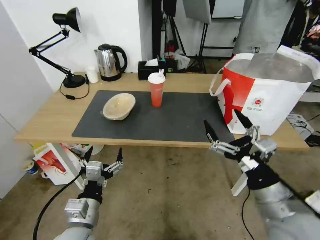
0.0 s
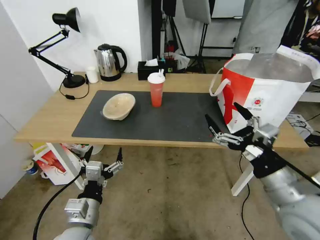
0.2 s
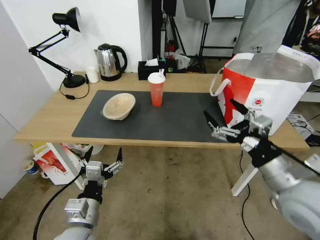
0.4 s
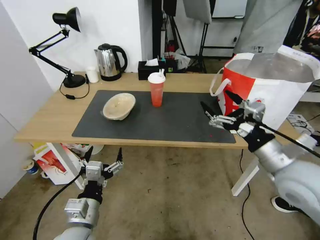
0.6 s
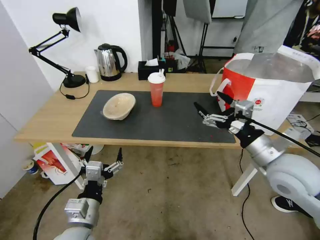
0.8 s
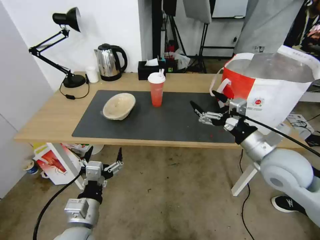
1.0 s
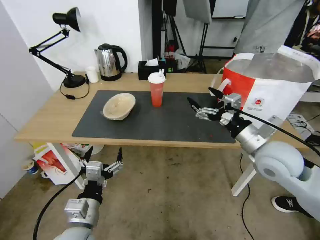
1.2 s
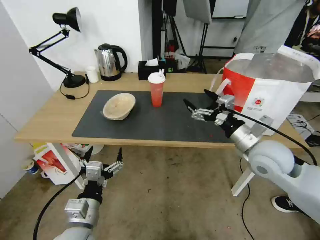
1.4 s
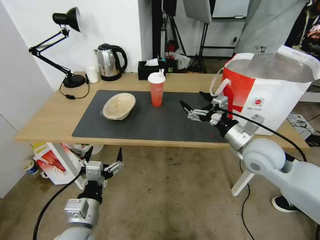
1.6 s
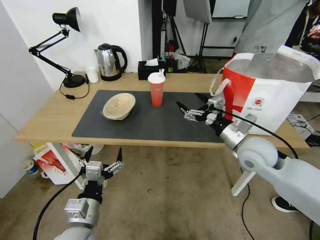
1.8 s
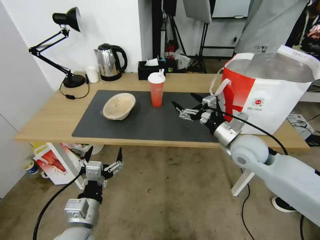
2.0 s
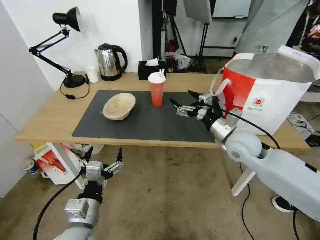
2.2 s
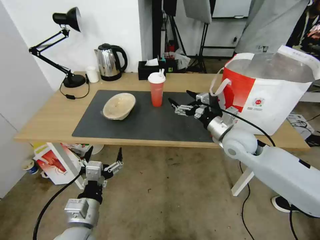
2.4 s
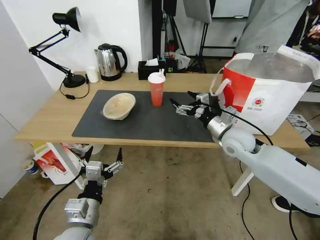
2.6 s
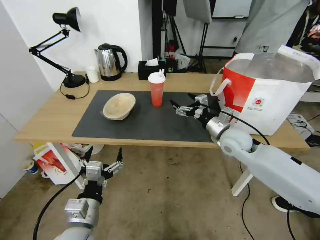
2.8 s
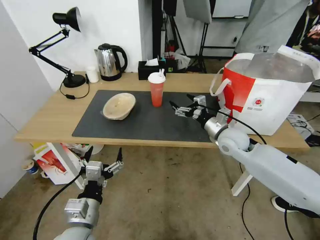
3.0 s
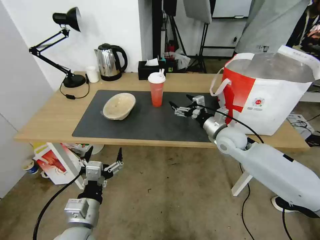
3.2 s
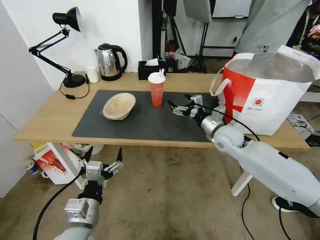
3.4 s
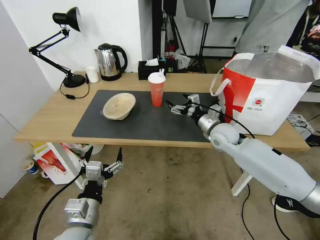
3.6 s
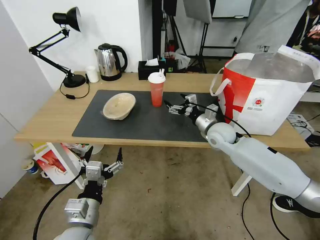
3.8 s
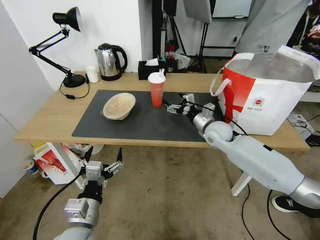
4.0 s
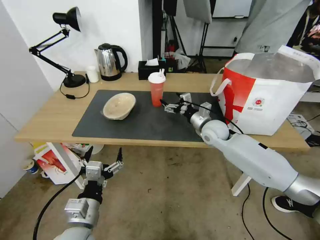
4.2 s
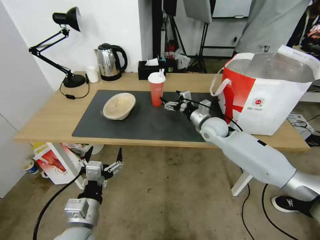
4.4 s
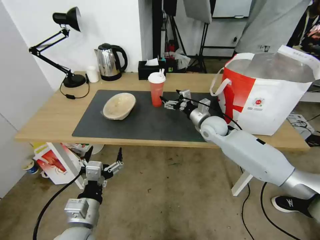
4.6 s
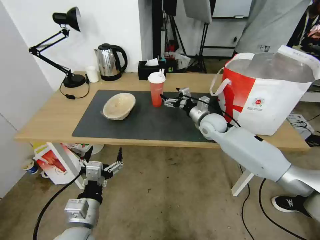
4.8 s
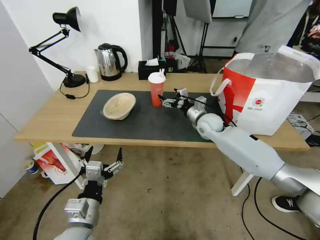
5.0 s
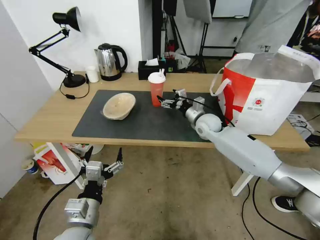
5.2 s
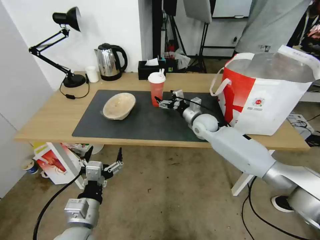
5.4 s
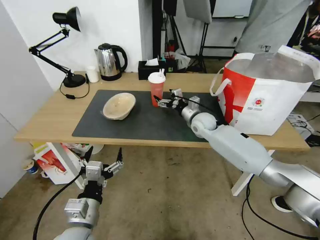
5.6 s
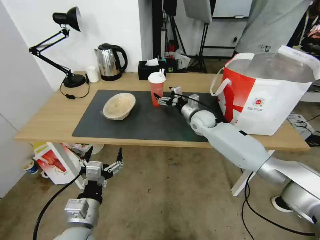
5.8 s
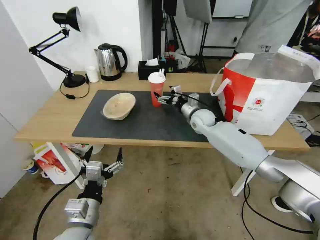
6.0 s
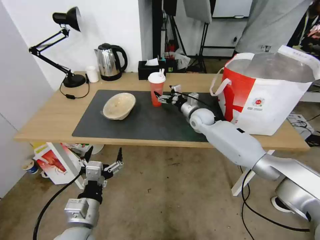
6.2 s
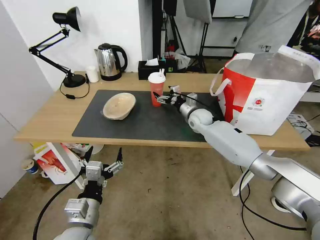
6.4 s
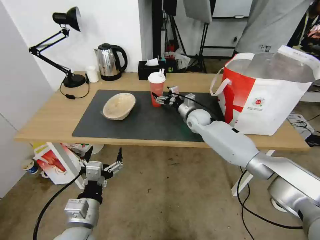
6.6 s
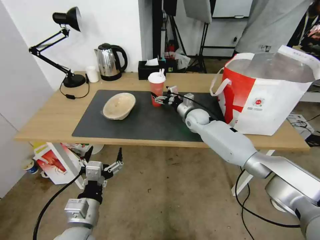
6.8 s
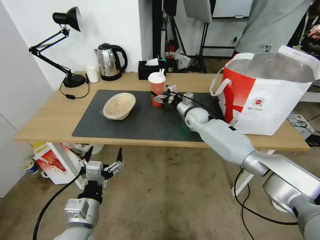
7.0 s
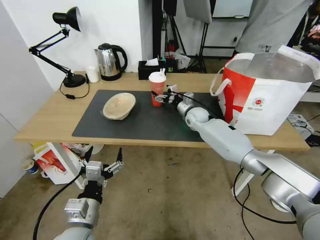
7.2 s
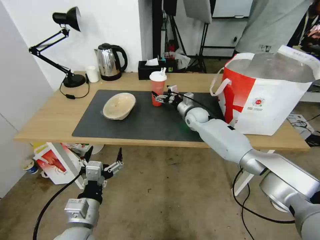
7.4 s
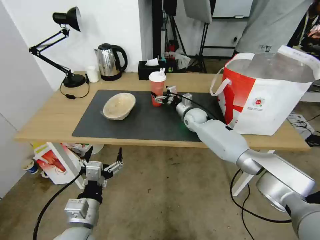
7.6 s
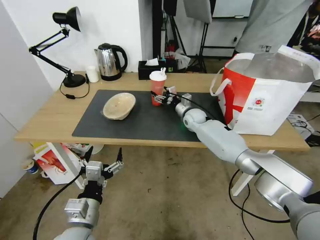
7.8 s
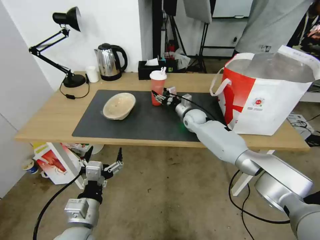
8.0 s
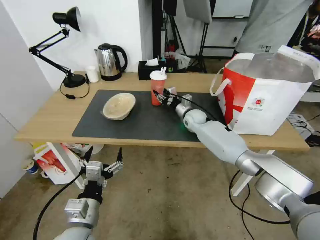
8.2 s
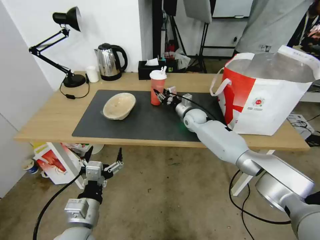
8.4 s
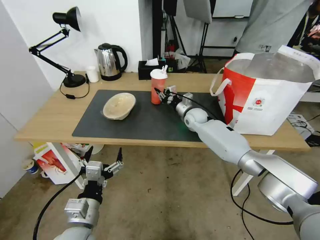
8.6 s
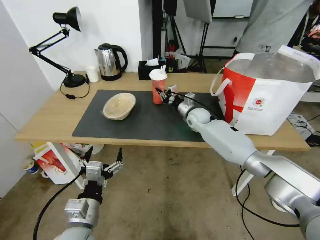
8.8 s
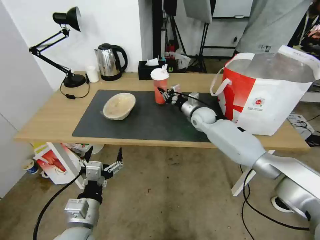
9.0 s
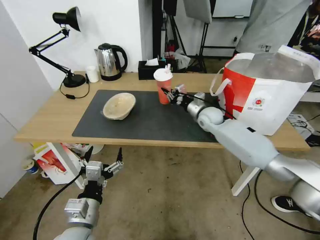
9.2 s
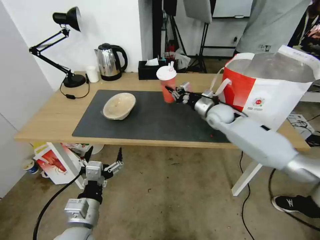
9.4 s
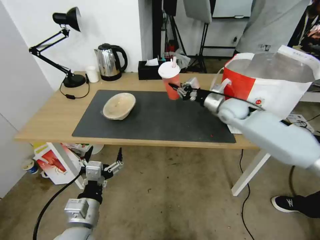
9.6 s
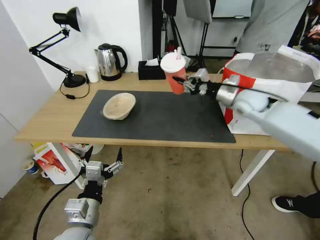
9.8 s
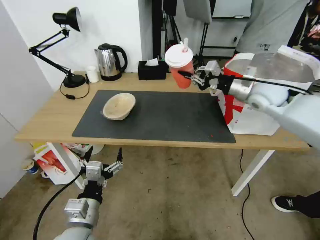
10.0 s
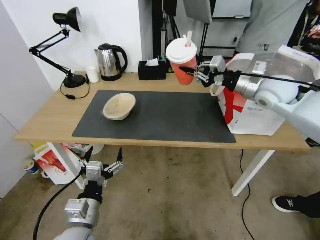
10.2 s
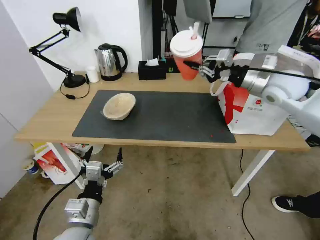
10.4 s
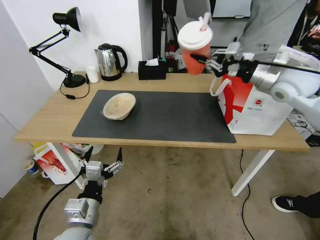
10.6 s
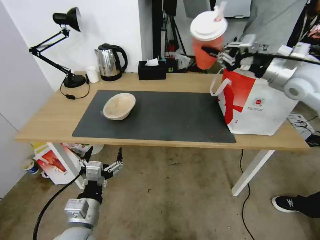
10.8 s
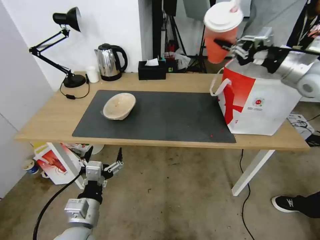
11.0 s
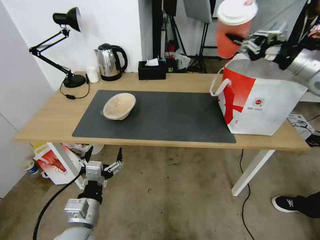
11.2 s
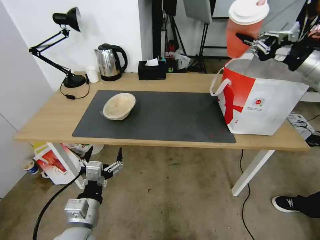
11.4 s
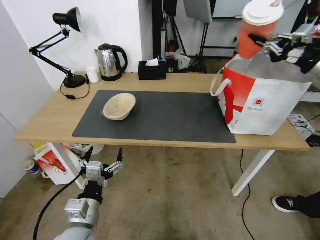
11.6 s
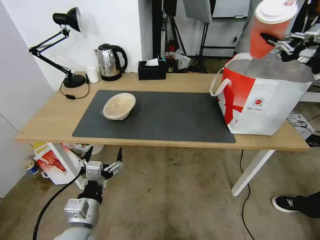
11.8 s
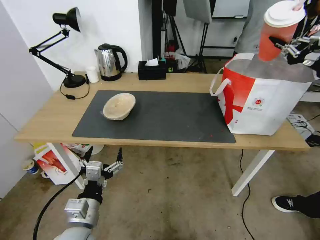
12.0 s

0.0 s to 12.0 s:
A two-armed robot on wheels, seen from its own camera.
Task of the whole recording: Pick up the trash from the table and place it into the takeout bag.
0.0 to 1.6 s: The right gripper shifts some 15 cm forward.
1.6 to 3.0 s: The right gripper is displaced forward and downward by approximately 10 cm.
3.0 to 4.4 s: The right gripper heads forward, covering approximately 5 cm.
4.4 to 6.0 s: The right gripper moves forward, roughly 5 cm.
6.0 to 7.6 s: There are only small adjustments of the grippers.
7.6 to 9.0 s: The right gripper closes up.
9.0 to 10.4 s: The right gripper is displaced upward, to the right and backward by about 30 cm.
10.4 to 12.0 s: The right gripper shifts approximately 20 cm to the right.

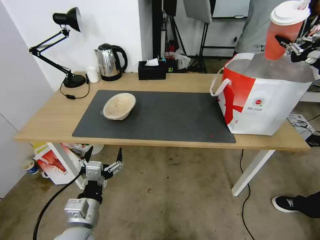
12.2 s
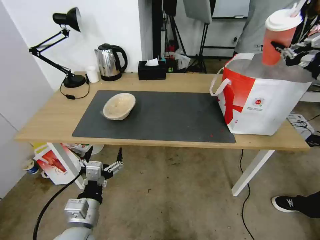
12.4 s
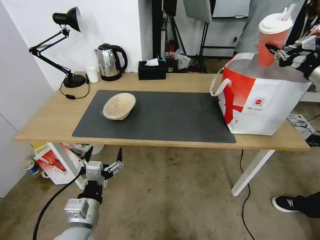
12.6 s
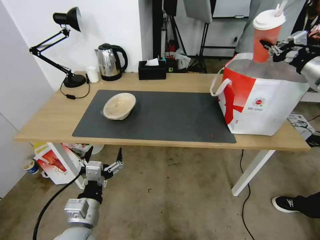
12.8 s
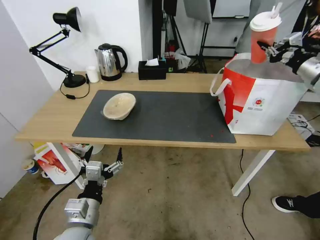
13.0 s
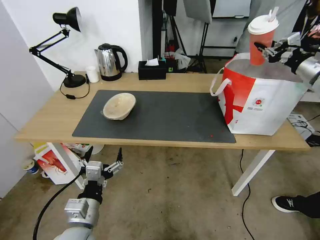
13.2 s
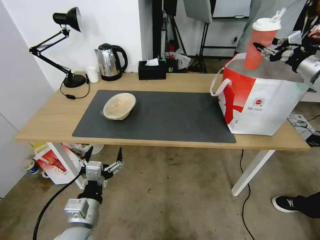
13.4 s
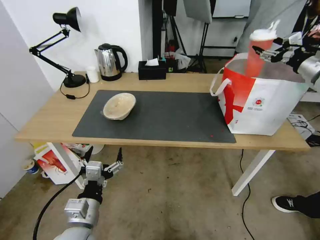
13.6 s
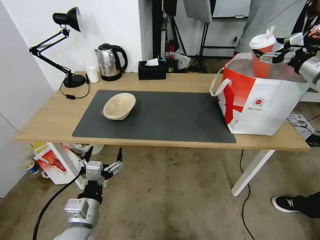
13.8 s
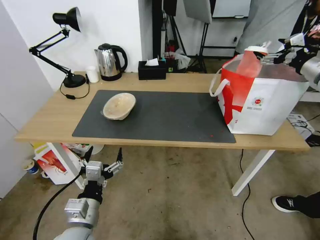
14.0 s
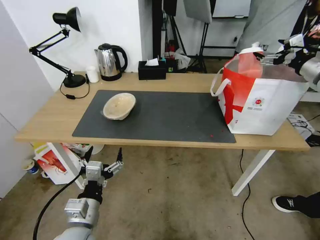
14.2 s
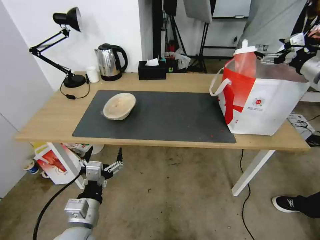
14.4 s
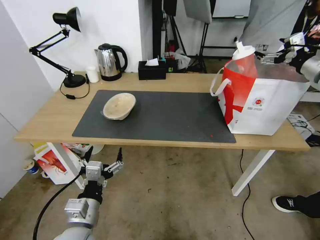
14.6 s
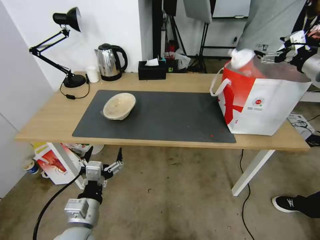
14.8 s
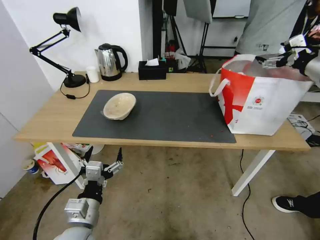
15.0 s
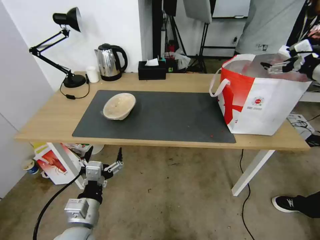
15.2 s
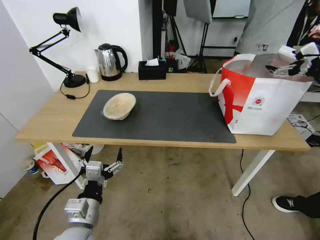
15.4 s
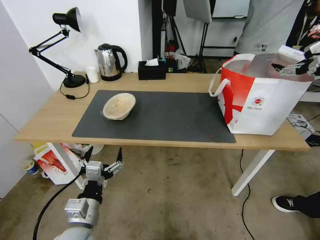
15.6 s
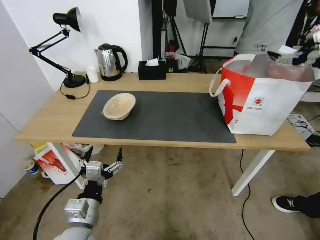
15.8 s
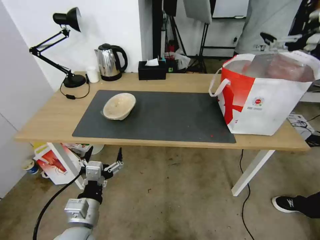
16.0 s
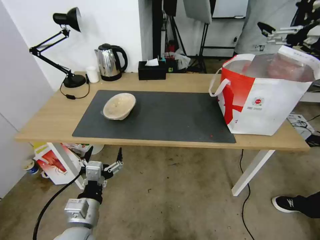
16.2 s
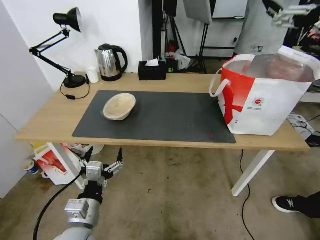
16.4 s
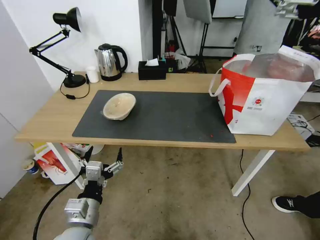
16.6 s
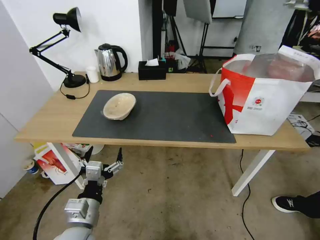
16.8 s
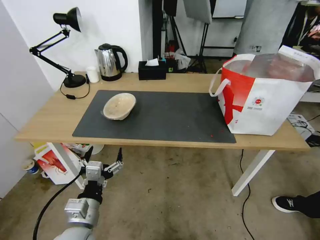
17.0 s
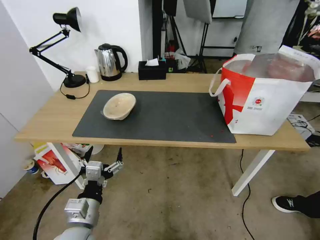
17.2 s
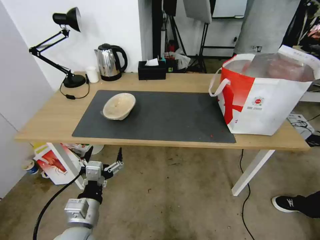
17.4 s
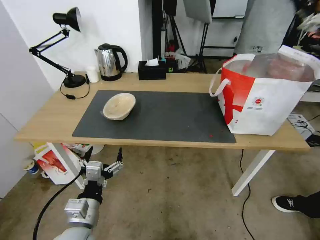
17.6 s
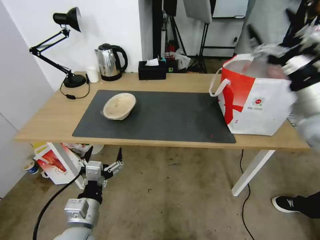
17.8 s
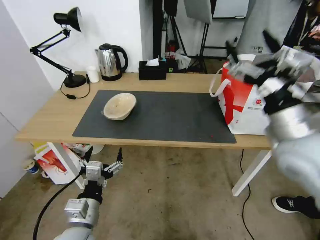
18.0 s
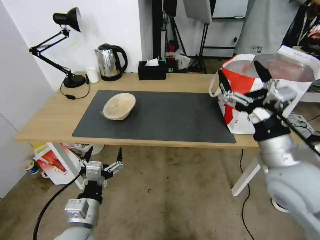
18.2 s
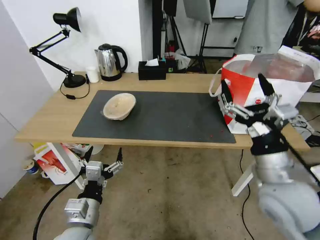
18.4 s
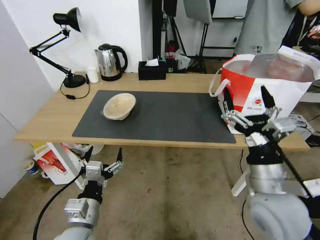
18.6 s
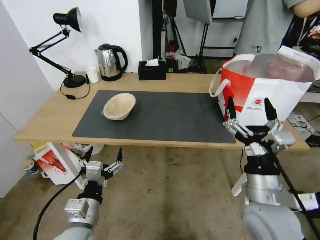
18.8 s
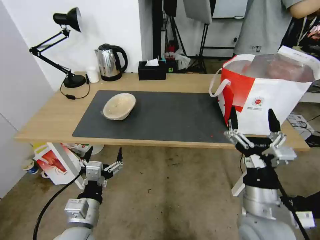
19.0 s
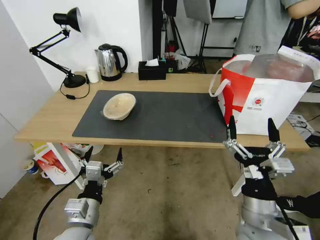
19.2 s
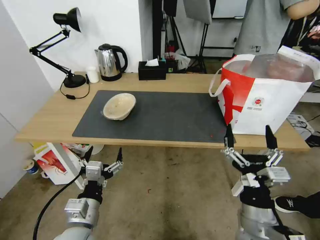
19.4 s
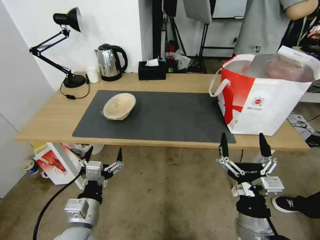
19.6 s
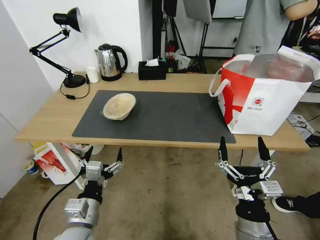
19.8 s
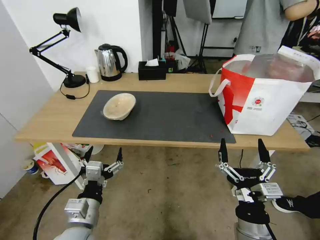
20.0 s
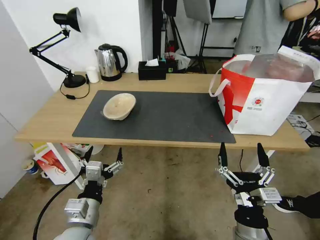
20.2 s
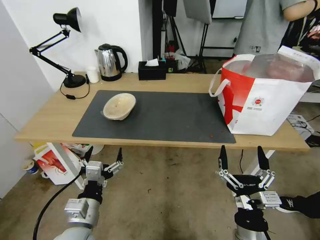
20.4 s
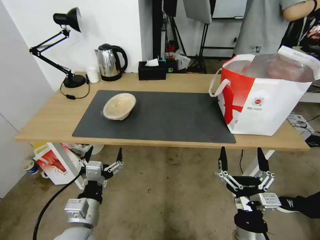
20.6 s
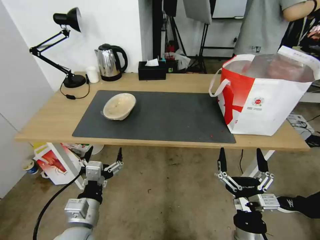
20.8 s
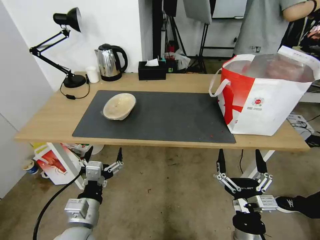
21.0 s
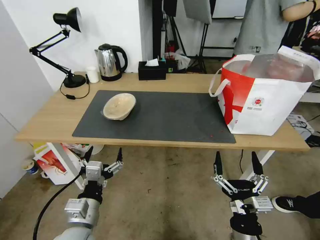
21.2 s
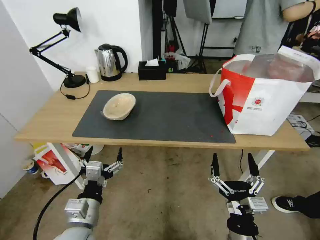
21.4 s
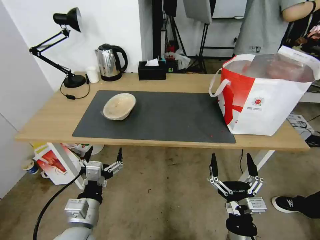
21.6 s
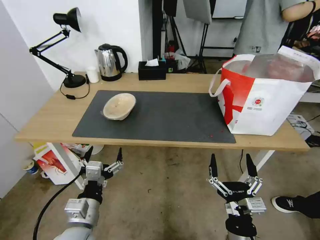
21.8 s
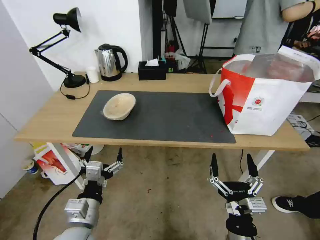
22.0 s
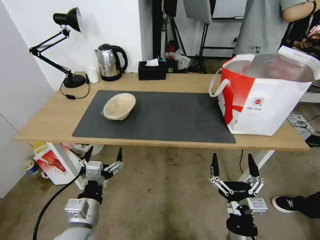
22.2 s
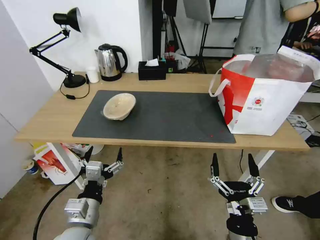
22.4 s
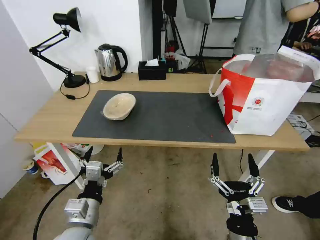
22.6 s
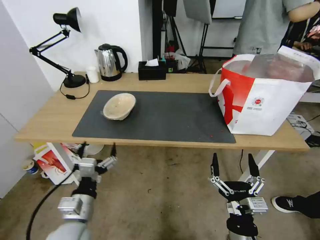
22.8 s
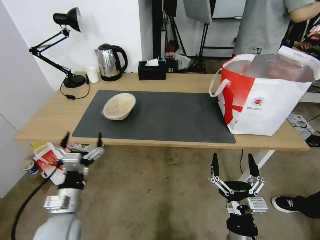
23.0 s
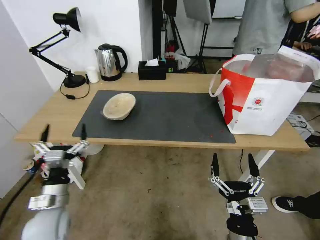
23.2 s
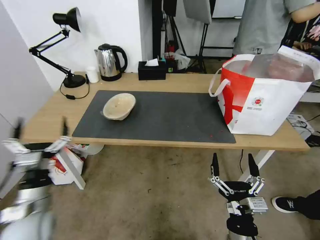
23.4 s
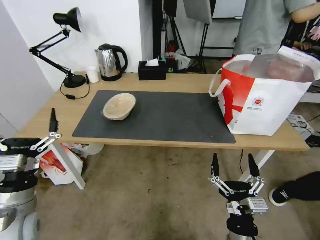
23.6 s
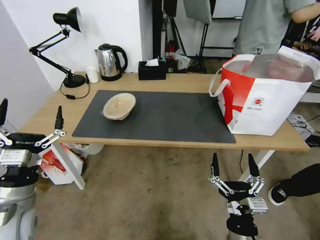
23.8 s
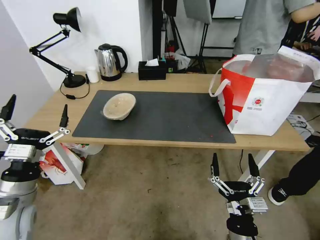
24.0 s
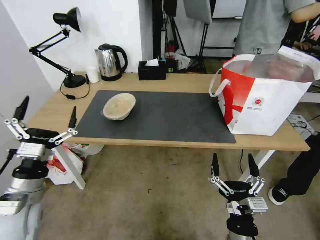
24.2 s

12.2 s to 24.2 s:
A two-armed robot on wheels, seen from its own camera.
Task of the whole recording: Pick up the trash from the table and place it into the takeout bag.
12.2 to 13.8 s: The right gripper moves forward, some 5 cm, and opens.
13.8 to 15.2 s: The grippers make only small movements.
15.2 to 16.6 s: The right gripper moves backward, to the left and upward, about 20 cm.
16.6 to 18.2 s: The right gripper travels downward and to the left by roughly 20 cm.
18.2 to 19.8 s: The right gripper moves downward and backward, some 25 cm.
19.8 to 21.2 s: The grippers move only a little.
21.2 to 22.6 s: Neither gripper changes place.
22.6 to 24.2 s: The left gripper heads to the left, covering about 15 cm.
